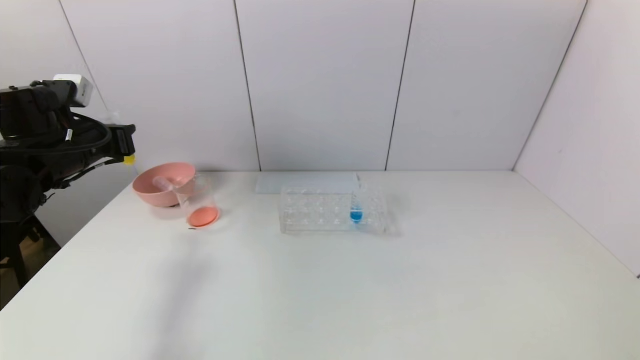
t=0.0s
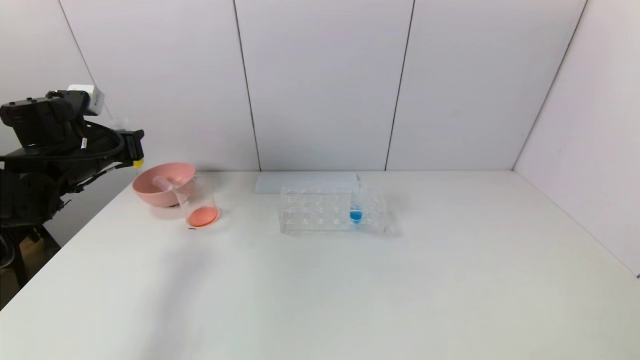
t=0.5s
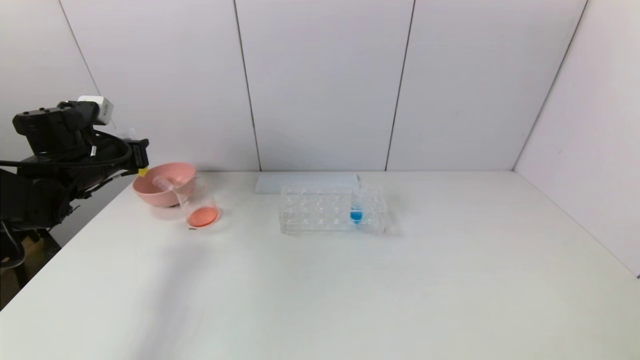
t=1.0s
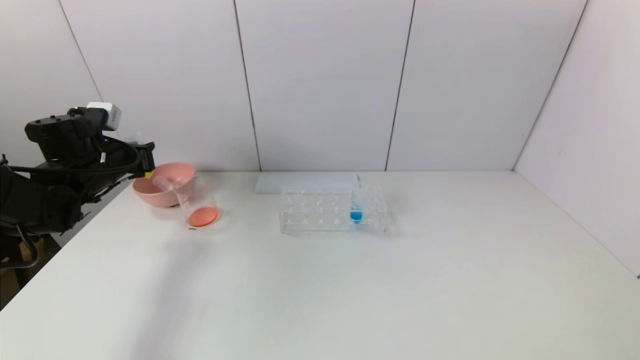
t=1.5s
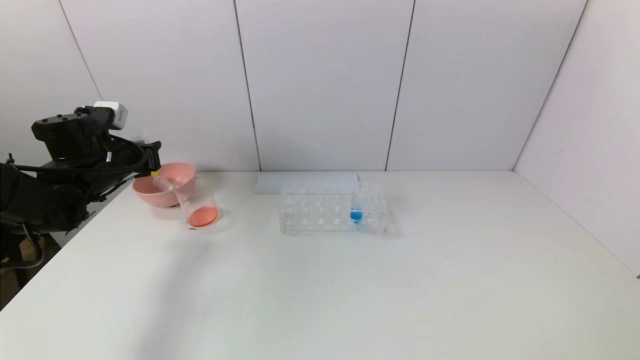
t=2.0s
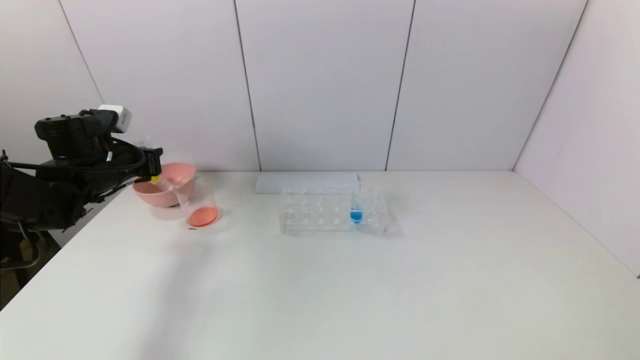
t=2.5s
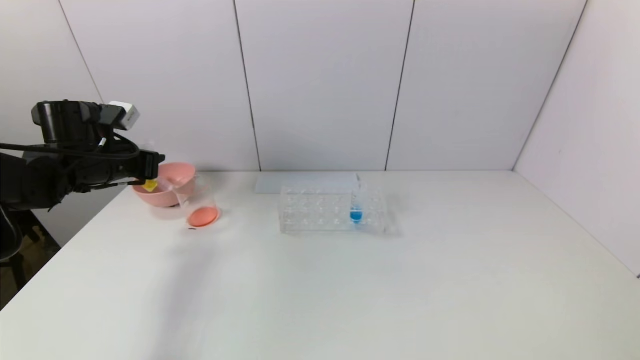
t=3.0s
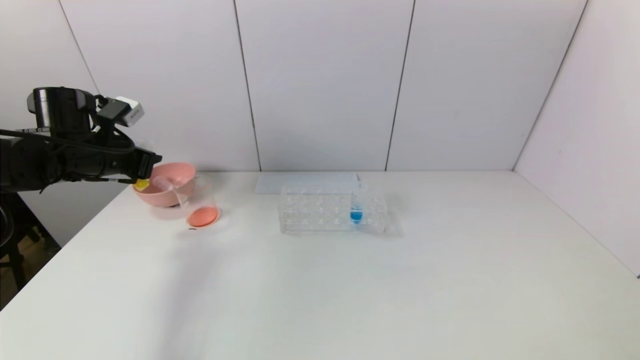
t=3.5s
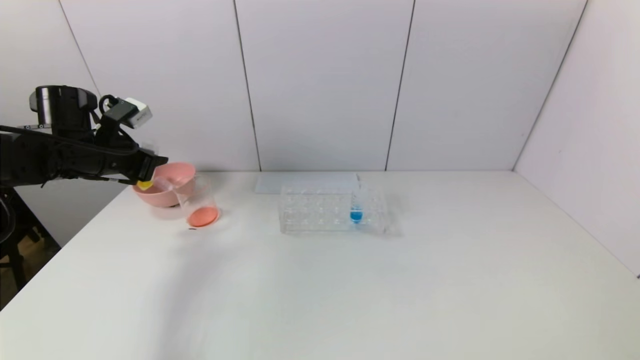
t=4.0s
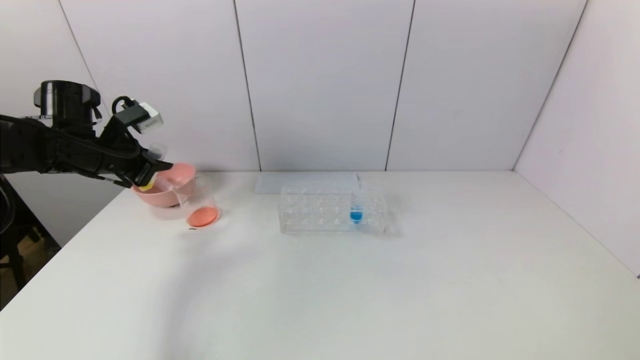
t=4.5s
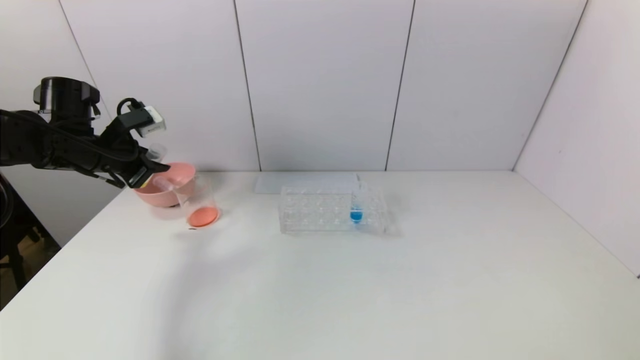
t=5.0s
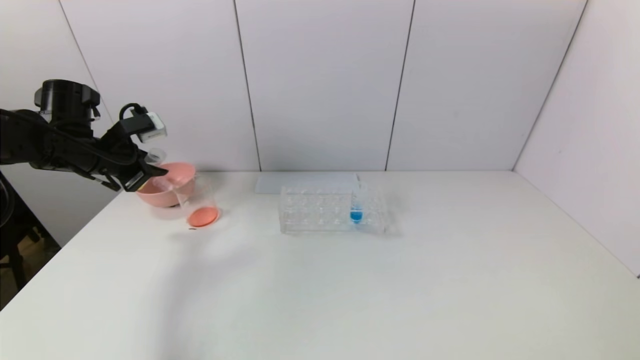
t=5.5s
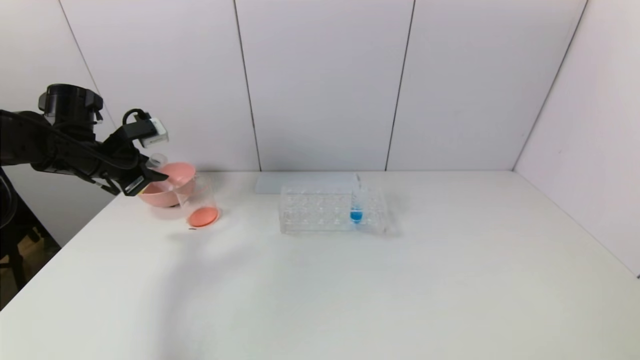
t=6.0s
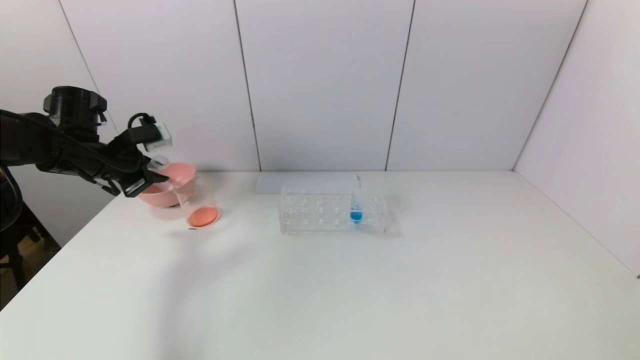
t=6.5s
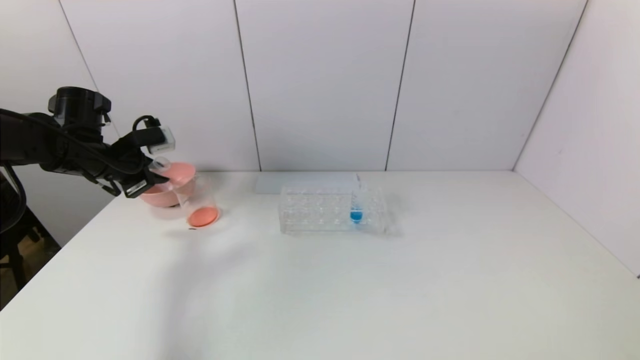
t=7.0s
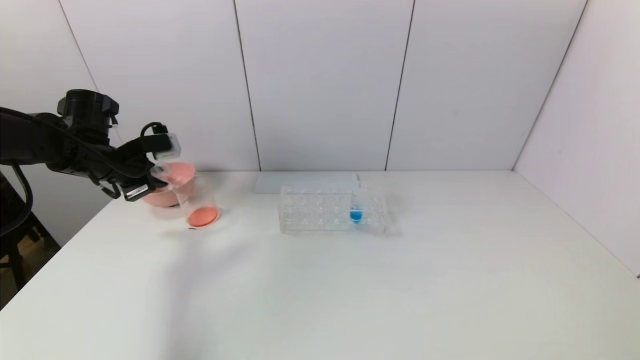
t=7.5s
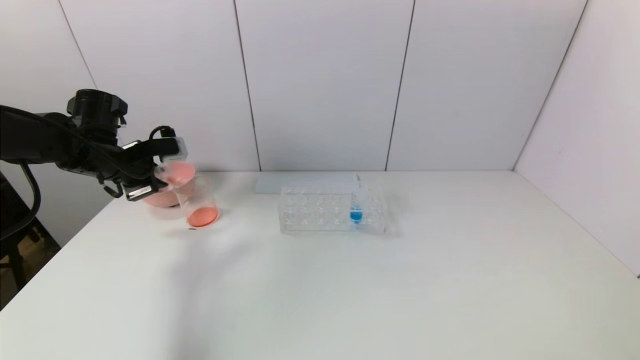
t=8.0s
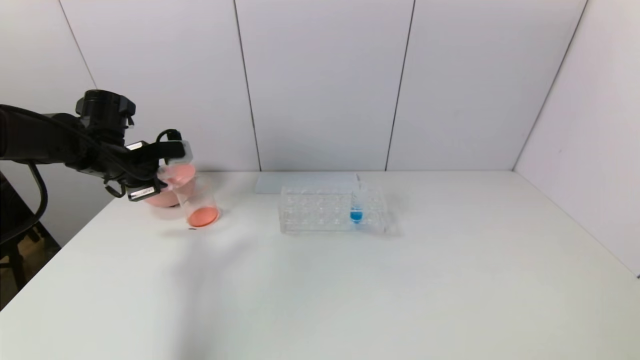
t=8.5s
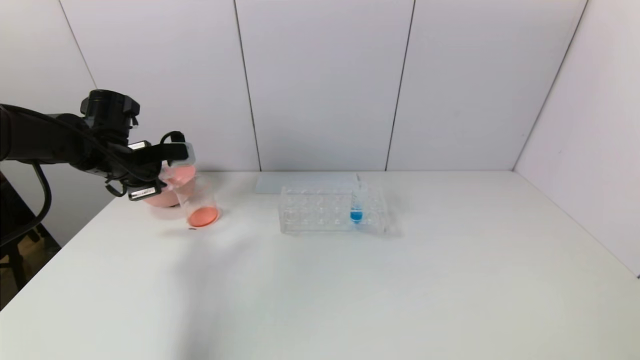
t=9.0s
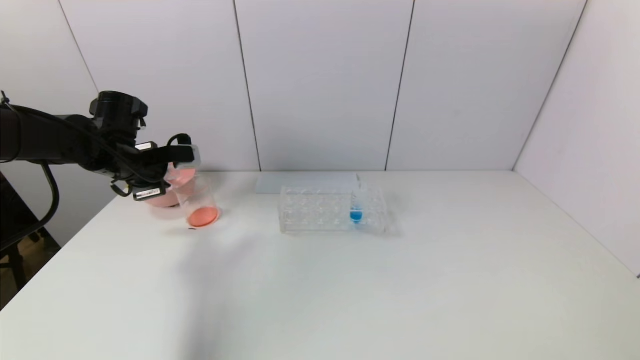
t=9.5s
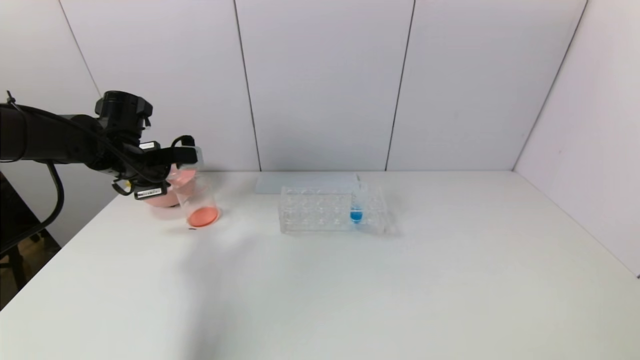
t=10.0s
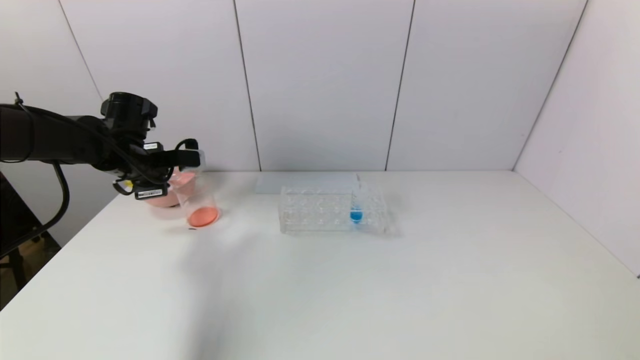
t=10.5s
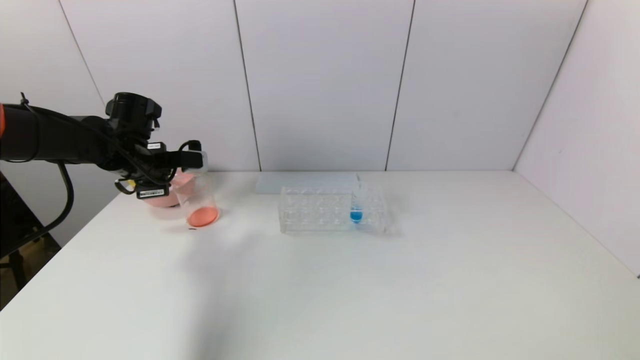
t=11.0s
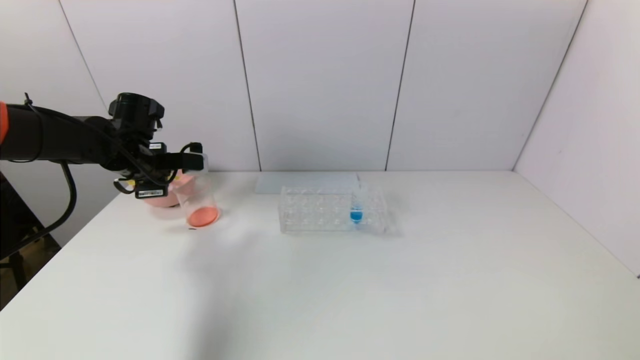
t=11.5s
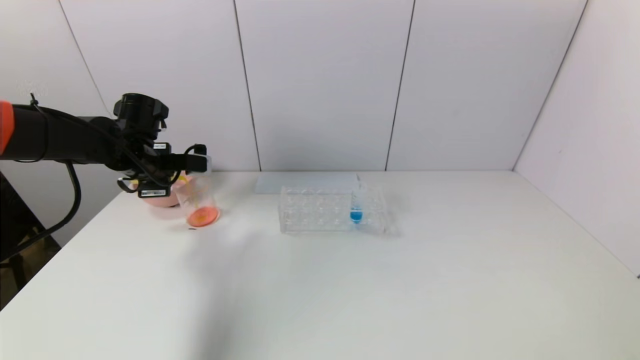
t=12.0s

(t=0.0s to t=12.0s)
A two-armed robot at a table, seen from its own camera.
Task of the whole recording: pick up the test tube with yellow pigment and the test tube with red pigment by grippers and pour them into the beaker.
t=0.0s - t=2.0s: The left gripper shifts by roughly 5 cm.
t=6.0s - t=8.0s: The grippers move only a little.
t=8.0s - t=10.0s: The grippers move only a little.
t=10.0s - t=12.0s: The grippers move only a little.

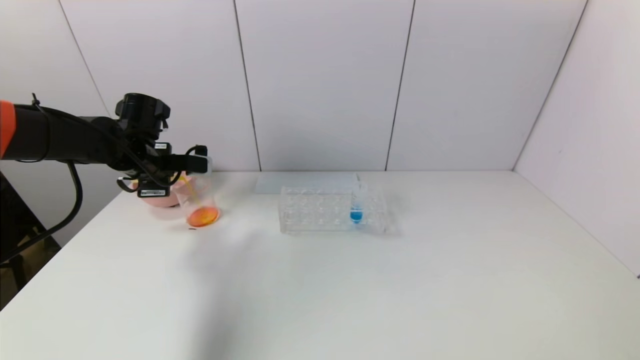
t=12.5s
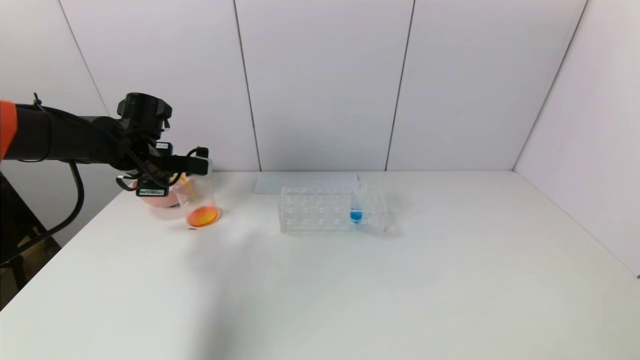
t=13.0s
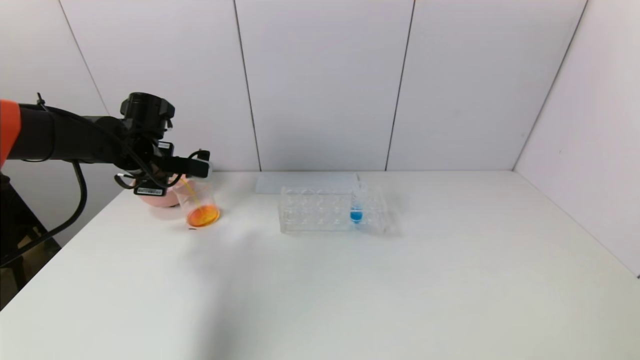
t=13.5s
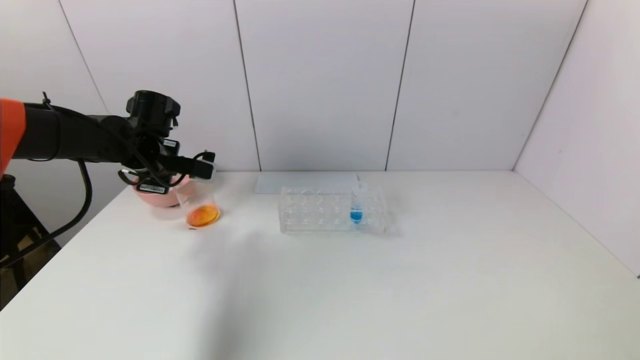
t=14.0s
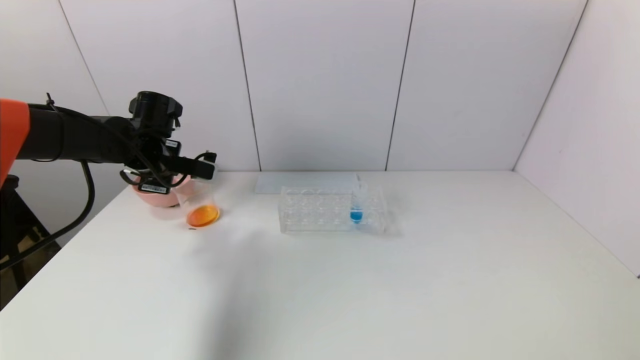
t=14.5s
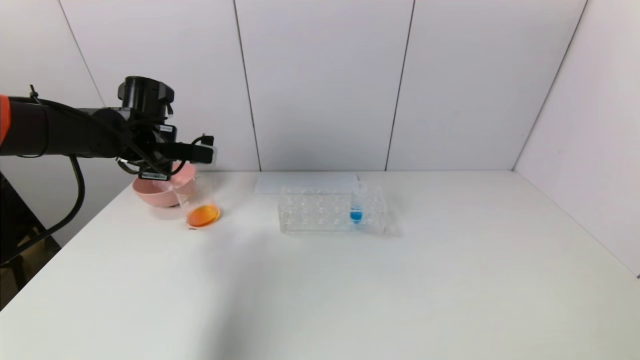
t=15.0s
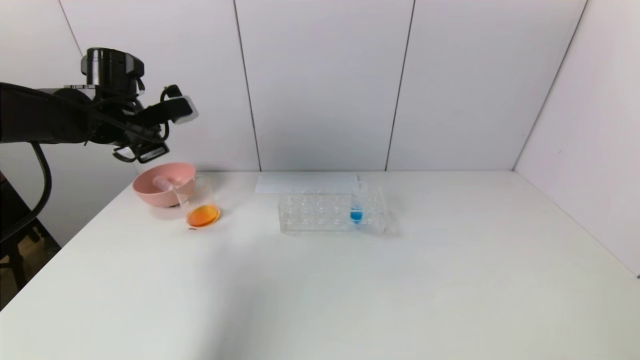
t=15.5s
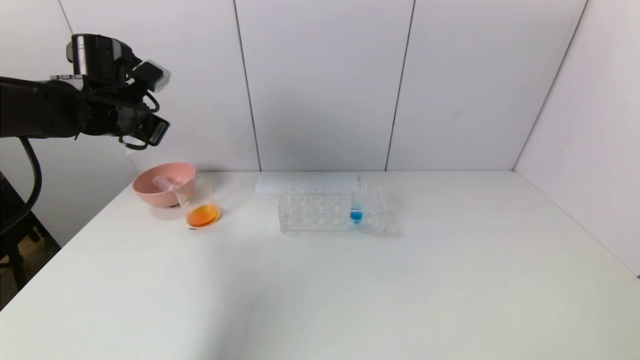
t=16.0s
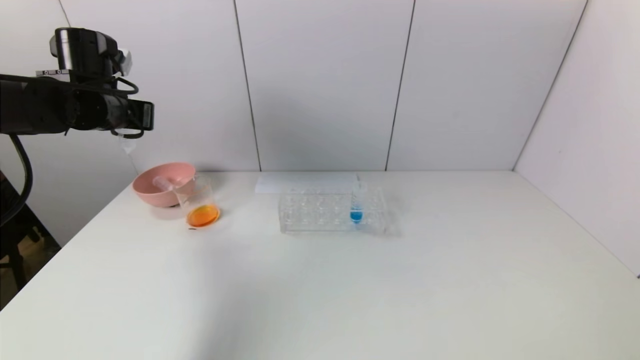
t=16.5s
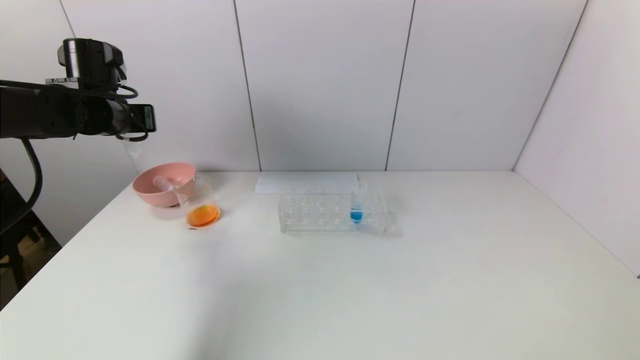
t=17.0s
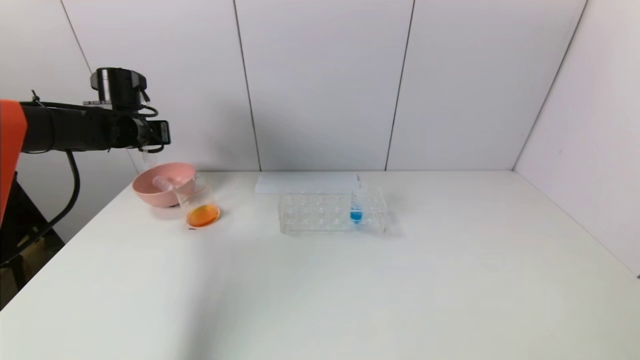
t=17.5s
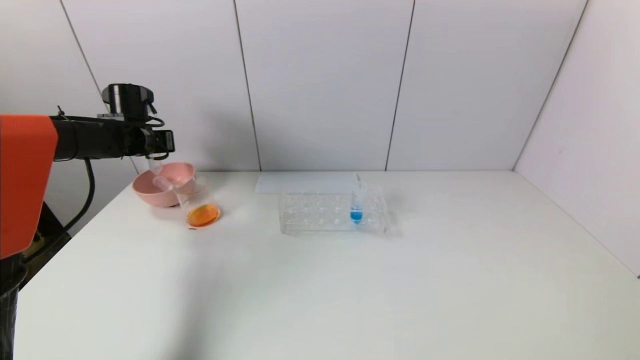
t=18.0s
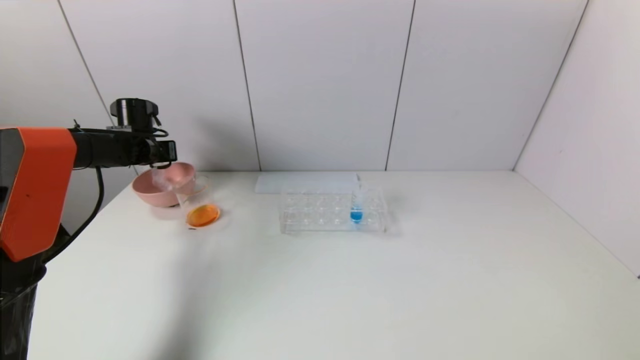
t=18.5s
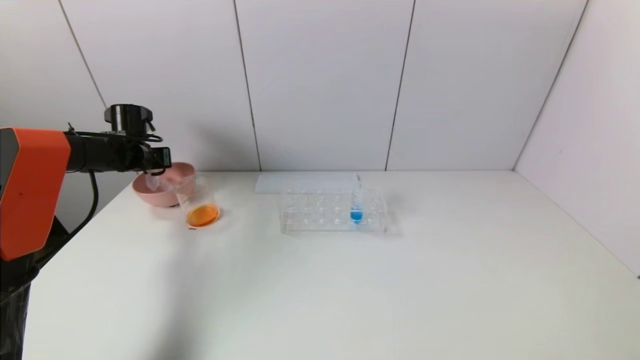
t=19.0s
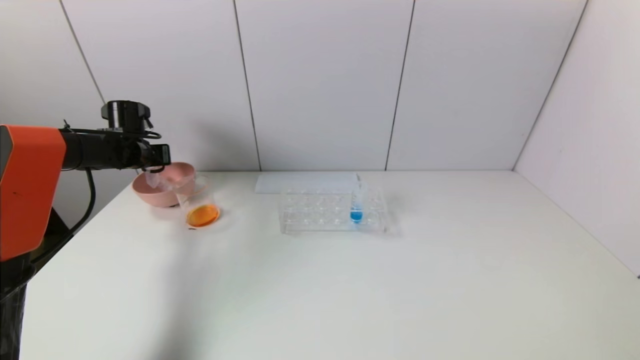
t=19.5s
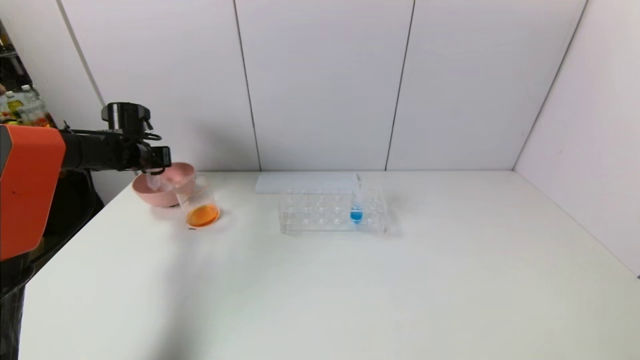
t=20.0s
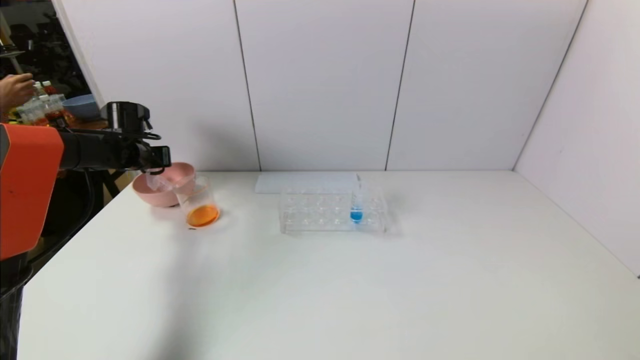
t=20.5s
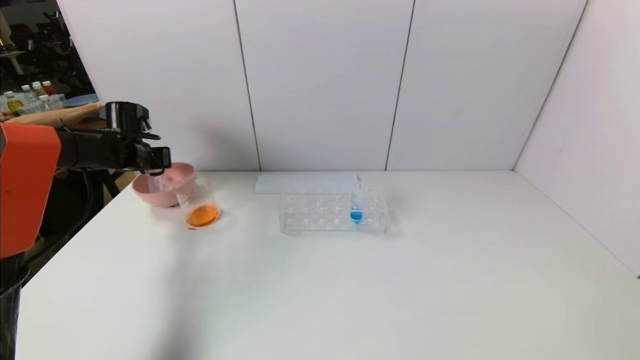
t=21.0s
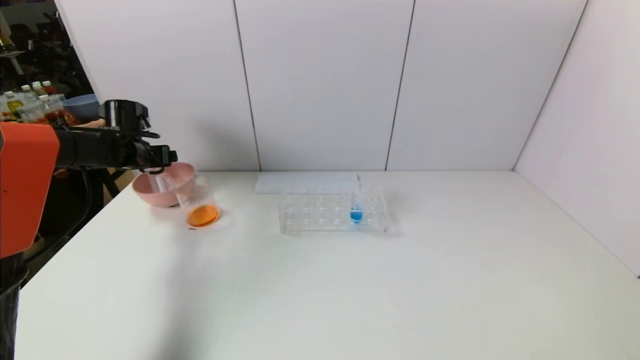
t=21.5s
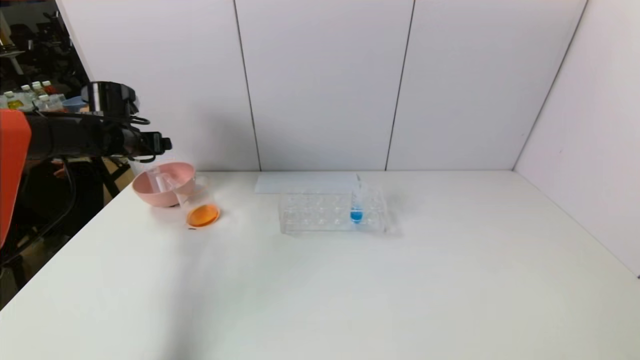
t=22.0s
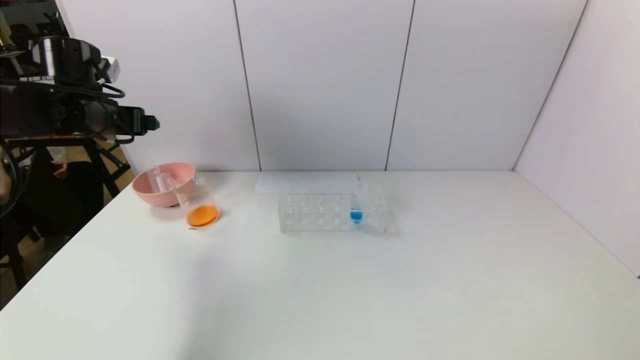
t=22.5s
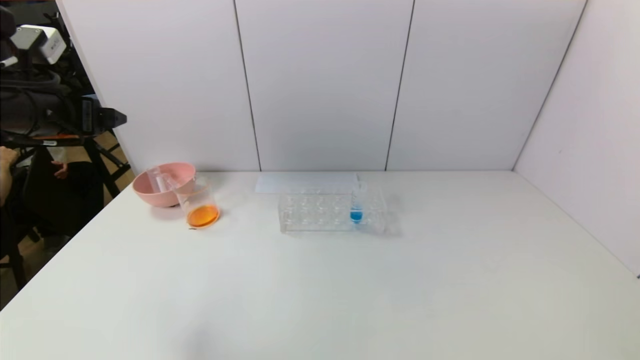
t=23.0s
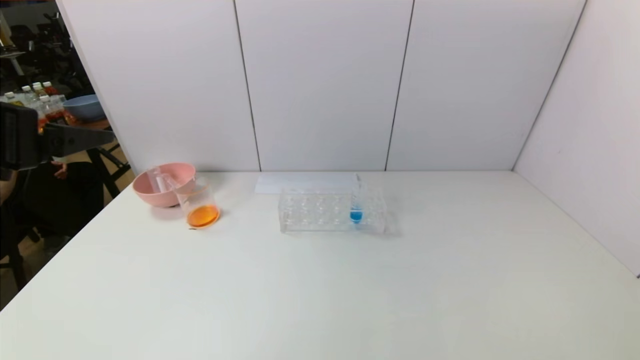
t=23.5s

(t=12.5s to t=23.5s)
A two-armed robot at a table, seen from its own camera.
Task of the whole recording: pick up the test tube with yellow pigment and the test tube with red pigment by grippers and pour them into the beaker.
Step, t=14.5s - t=21.0s: Place the test tube into the pink bowl with the left gripper.
t=12.5s - t=14.5s: The grippers stay close to where they were, moving slightly.
t=14.5s - t=16.0s: The left gripper goes about 10 cm upward.
t=16.0s - t=18.0s: The left gripper moves forward and downward, roughly 10 cm.
t=18.0s - t=20.0s: The grippers make only small movements.
t=20.0s - t=21.5s: The left gripper opens up.
t=21.5s - t=23.5s: The left gripper heads backward and upward, covering about 35 cm.
